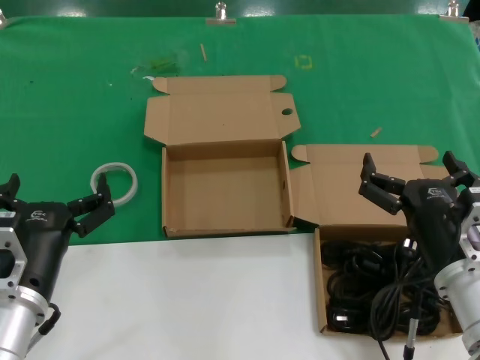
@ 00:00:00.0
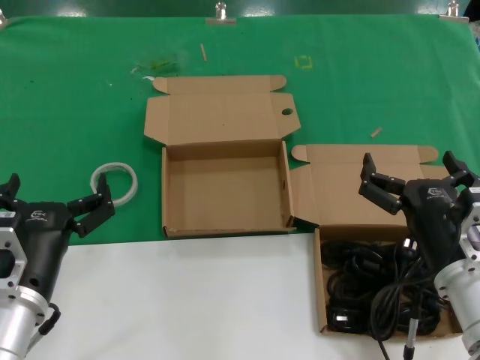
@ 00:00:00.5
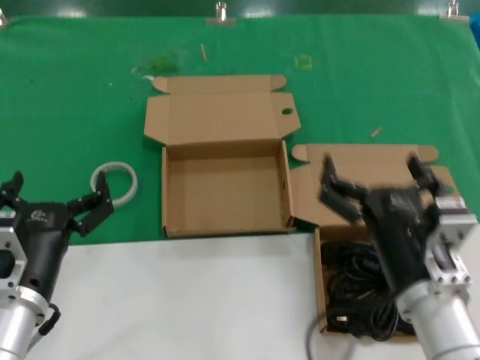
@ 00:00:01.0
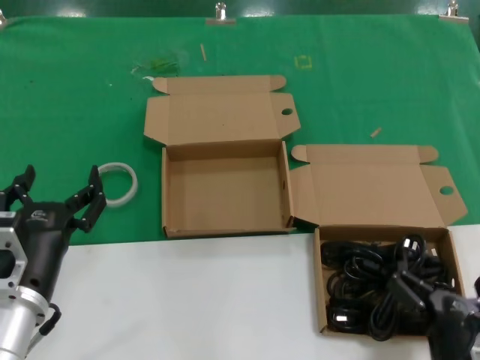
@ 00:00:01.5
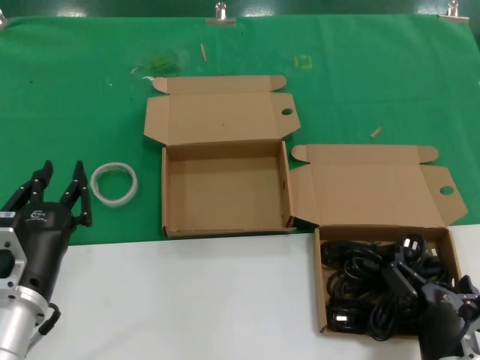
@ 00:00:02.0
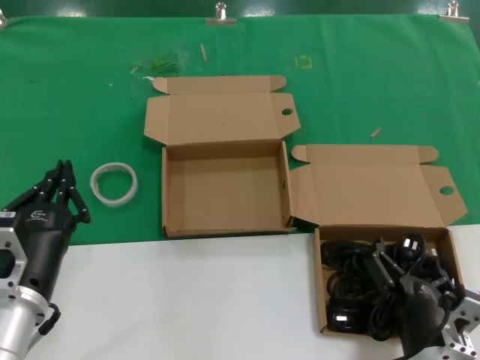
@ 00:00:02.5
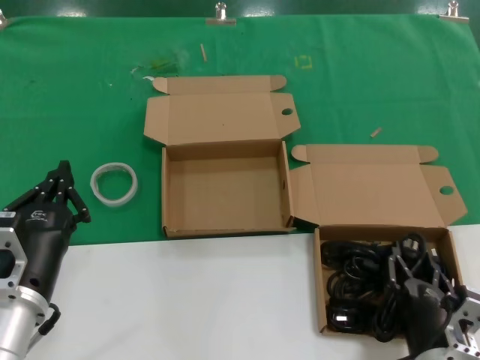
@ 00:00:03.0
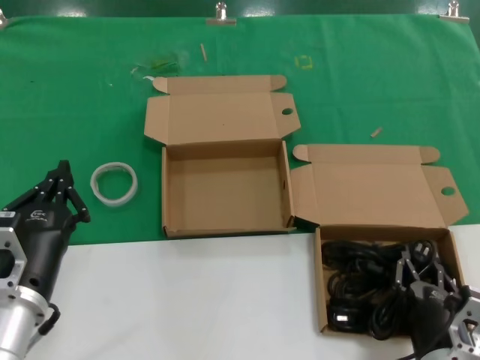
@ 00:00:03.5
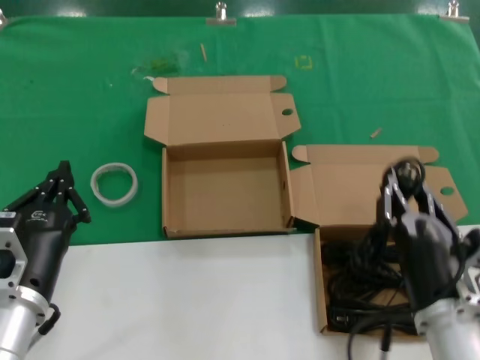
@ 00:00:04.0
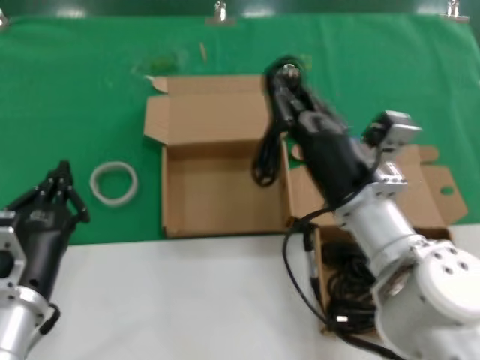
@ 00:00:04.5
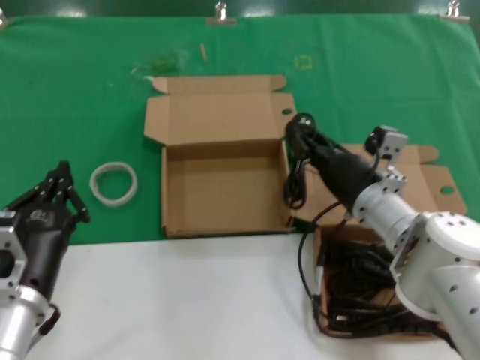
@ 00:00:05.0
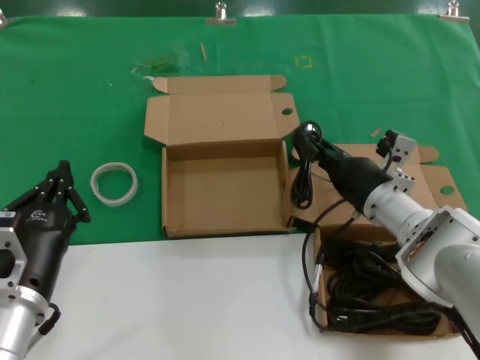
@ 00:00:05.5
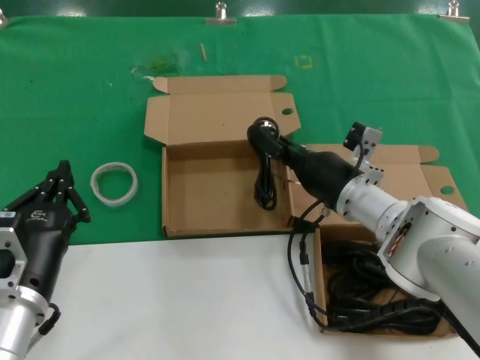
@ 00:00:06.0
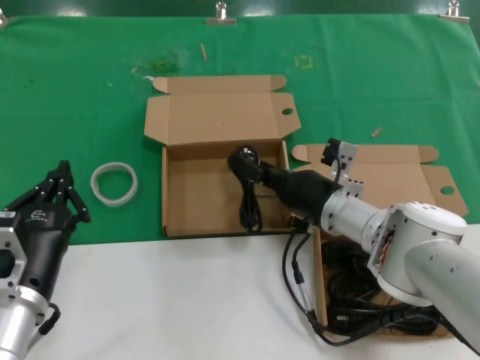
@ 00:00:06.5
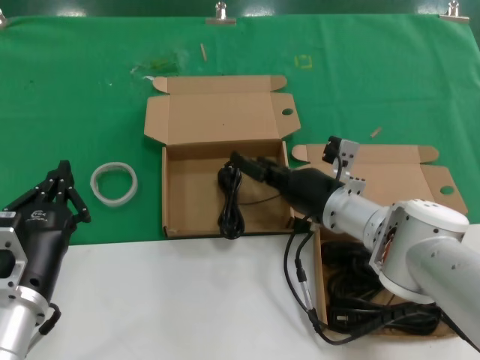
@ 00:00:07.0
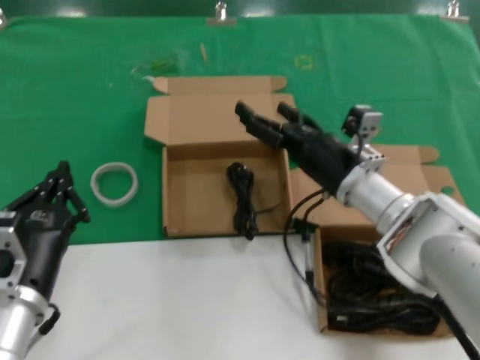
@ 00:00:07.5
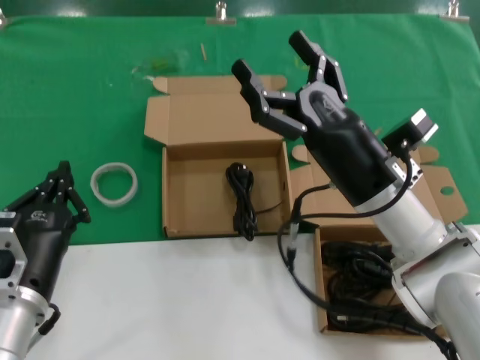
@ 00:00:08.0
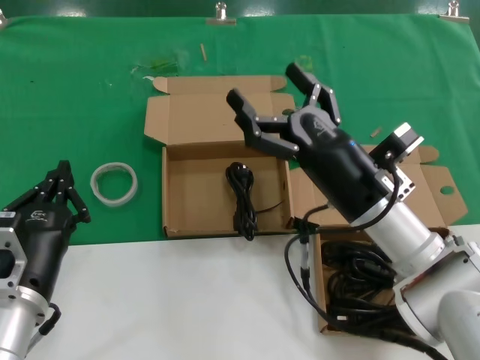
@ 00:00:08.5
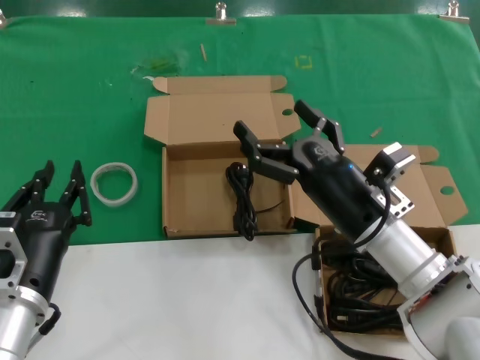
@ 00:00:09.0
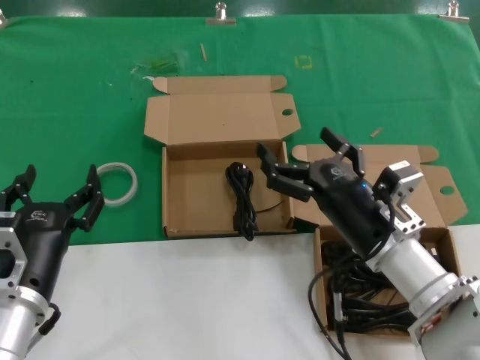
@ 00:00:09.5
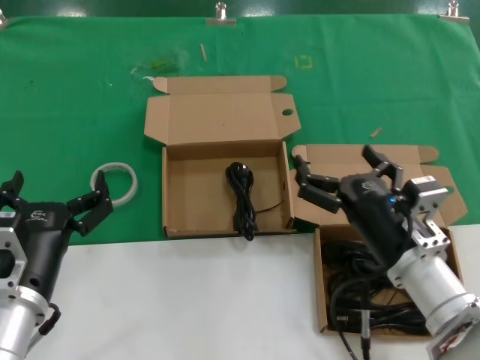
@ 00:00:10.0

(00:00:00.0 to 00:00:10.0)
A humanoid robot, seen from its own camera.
Task of the whole recording: Pick up the power cord from the box containing it and place it in another box.
Step, 00:00:00.0 - 00:00:03.5: Grasp the data cable.
Step, 00:00:04.0 - 00:00:07.0: Place the data cable in the another box.
00:00:00.0 - 00:00:02.0: The right hand goes roughly 10 cm downward and backward.
00:00:02.0 - 00:00:04.0: The right hand travels upward by roughly 10 cm.
00:00:04.0 - 00:00:06.0: The right hand goes roughly 25 cm forward.
00:00:06.0 - 00:00:08.0: The right hand travels backward by approximately 5 cm.
00:00:08.0 - 00:00:10.0: The right hand heads backward, covering some 10 cm.
